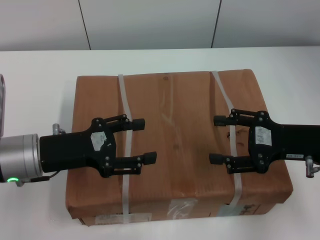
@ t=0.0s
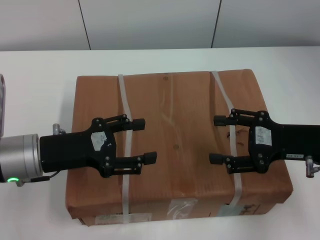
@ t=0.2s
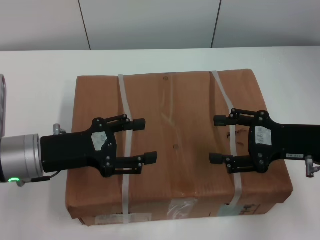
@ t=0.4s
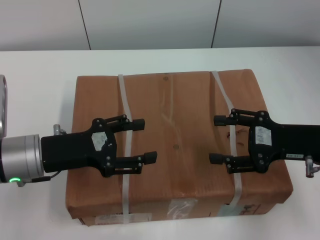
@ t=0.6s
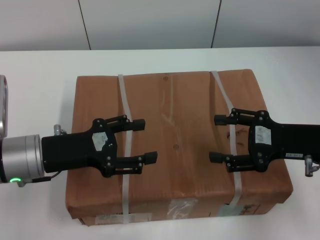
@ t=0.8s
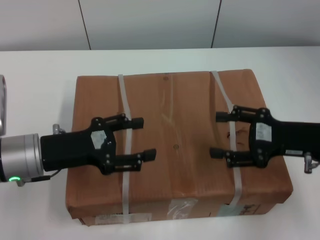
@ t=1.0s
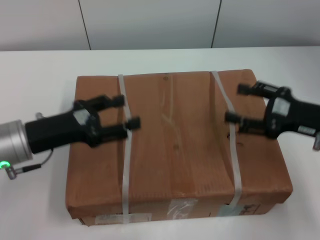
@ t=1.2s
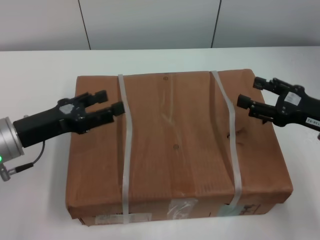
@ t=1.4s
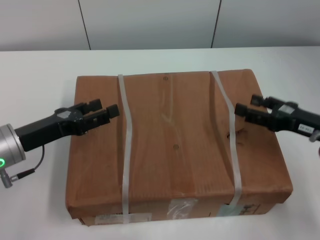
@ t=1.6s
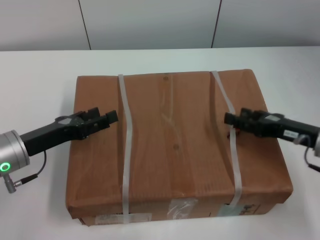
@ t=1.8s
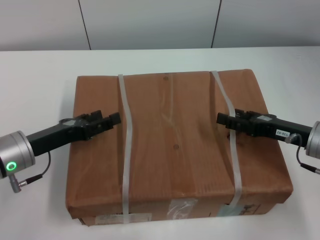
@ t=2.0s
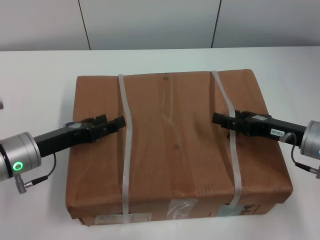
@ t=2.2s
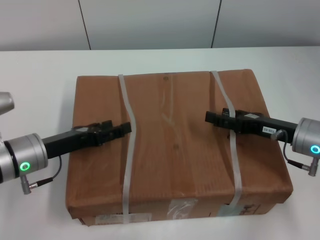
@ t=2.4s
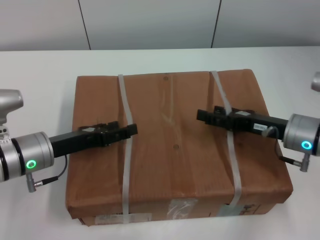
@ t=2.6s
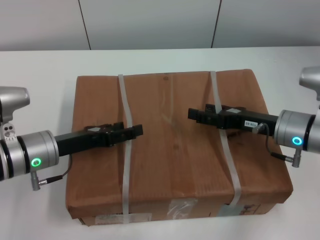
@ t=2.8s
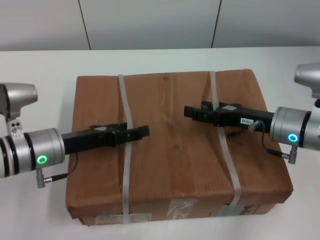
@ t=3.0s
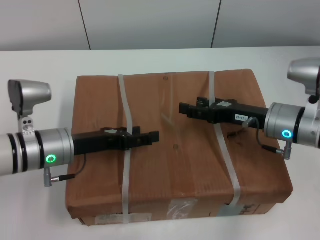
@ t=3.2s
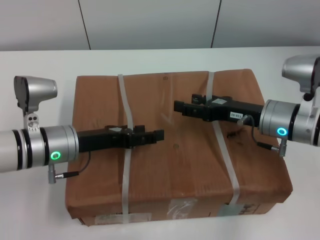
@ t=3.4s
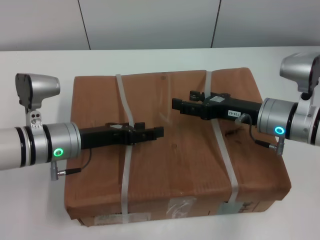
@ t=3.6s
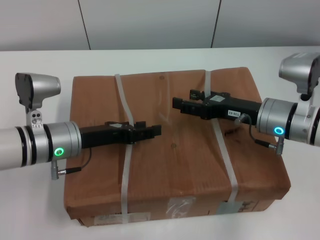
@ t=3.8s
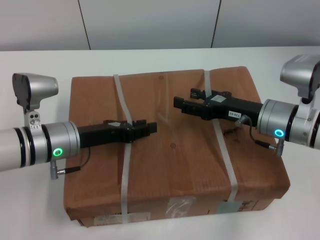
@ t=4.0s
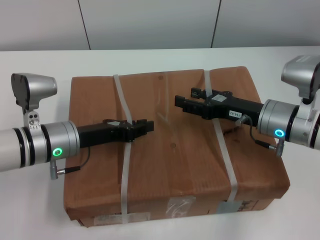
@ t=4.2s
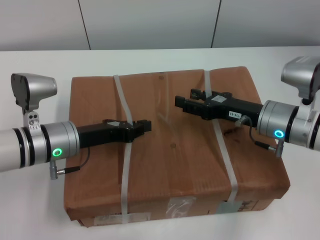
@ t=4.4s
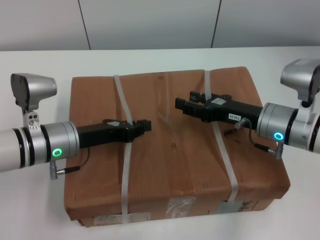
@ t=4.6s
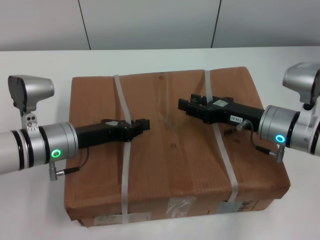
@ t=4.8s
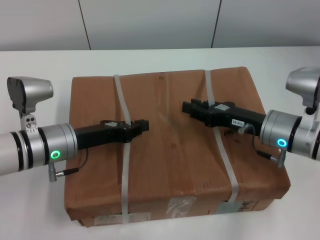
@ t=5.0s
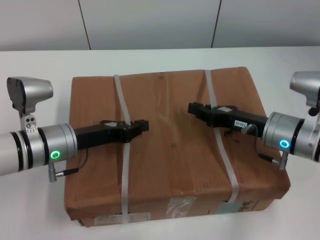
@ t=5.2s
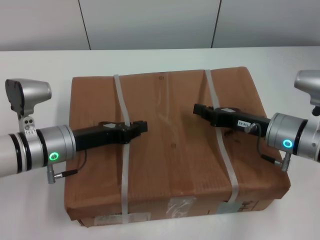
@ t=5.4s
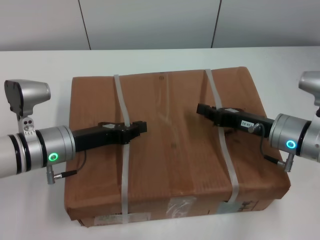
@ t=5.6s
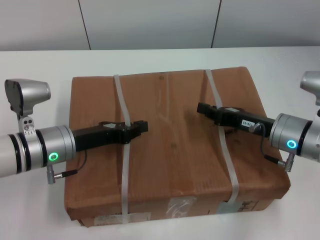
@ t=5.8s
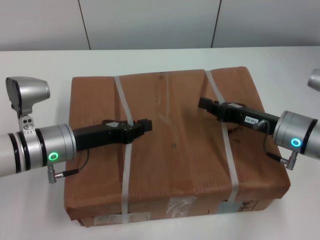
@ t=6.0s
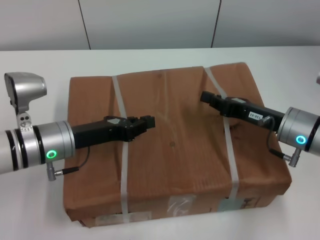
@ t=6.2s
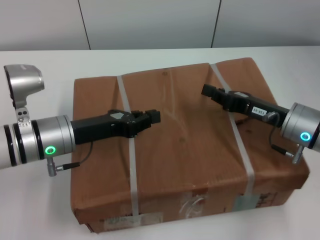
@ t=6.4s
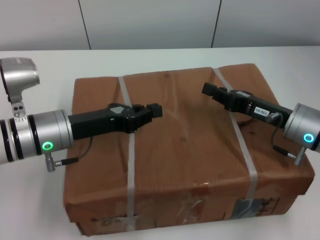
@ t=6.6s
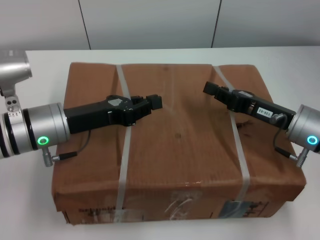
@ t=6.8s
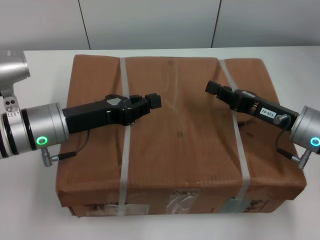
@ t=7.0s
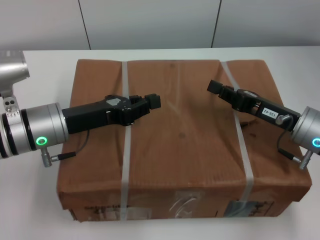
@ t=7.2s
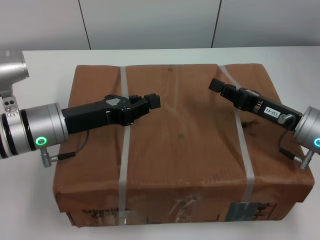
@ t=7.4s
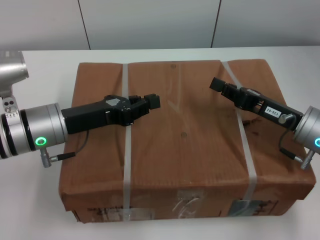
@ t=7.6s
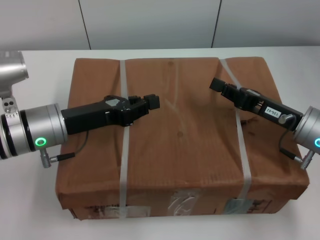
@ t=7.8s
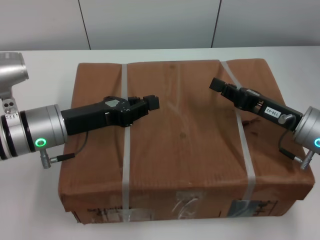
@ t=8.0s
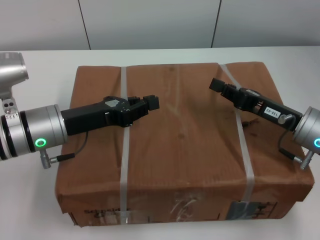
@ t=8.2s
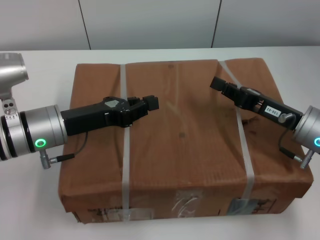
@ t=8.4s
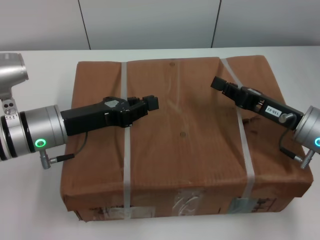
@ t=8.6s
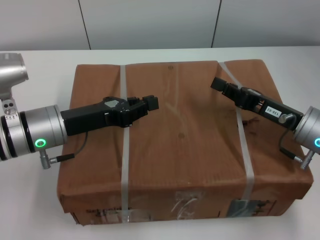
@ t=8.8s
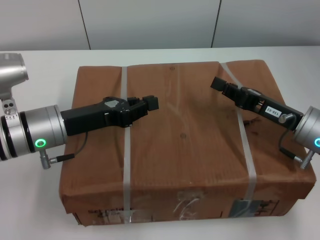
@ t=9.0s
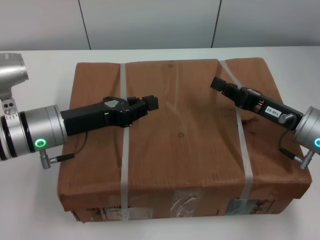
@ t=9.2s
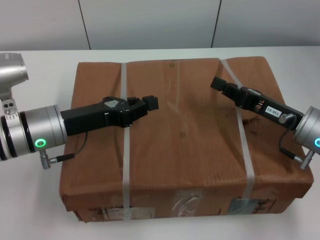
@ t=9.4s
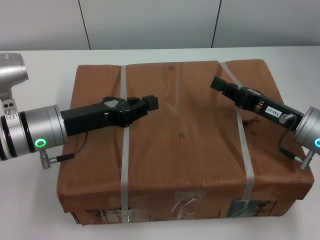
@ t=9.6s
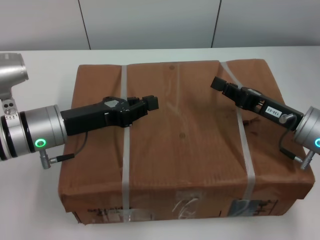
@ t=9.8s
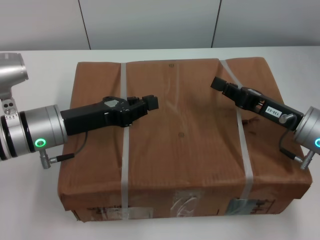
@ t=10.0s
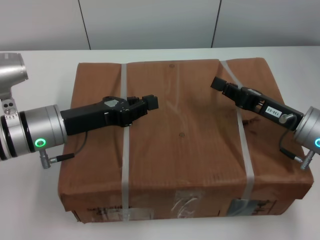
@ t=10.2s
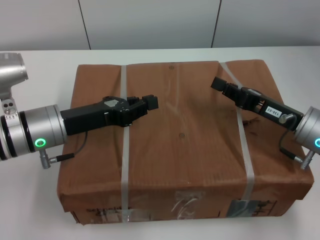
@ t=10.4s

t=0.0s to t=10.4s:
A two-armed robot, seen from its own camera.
Task of the whole recording: pick up the box from the table with both arms.
Step, t=0.0s to t=5.4s: Grasp the bandage with left gripper.
Step, t=0.0s to t=5.4s: Grasp the bandage with right gripper.
Step, t=5.6s to t=7.0s: Lift the box with left gripper.
Step, t=5.6s to t=7.0s: Lift the box with right gripper.
t=1.4s to t=3.0s: The right gripper moves to the left, about 10 cm; the left gripper moves roughly 5 cm.
t=3.0s to t=4.4s: The left gripper closes.
t=4.4s to t=6.0s: The right gripper closes.
t=7.4s to t=10.4s: Both grippers stay put.
